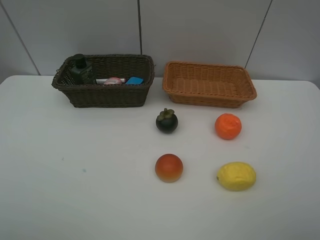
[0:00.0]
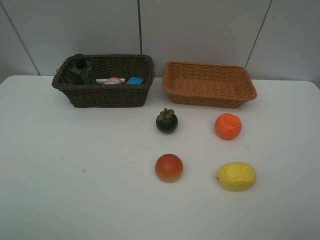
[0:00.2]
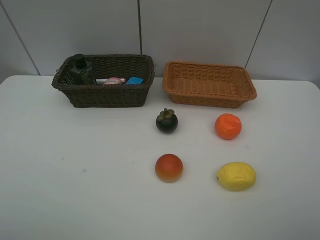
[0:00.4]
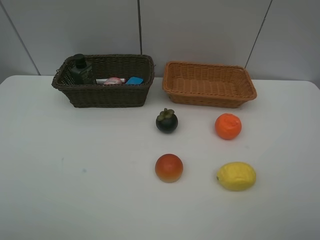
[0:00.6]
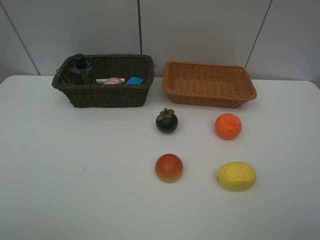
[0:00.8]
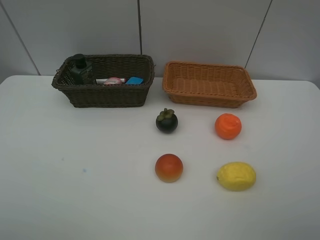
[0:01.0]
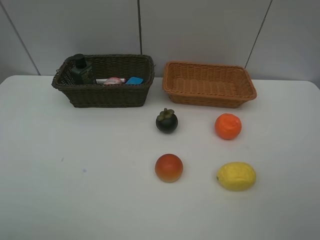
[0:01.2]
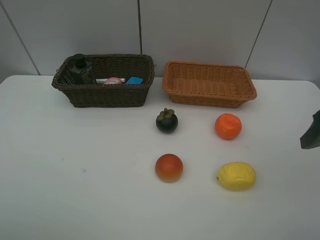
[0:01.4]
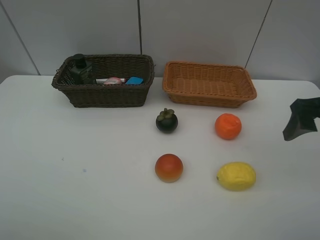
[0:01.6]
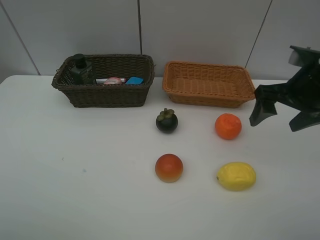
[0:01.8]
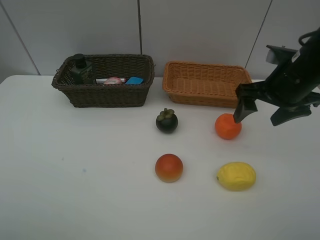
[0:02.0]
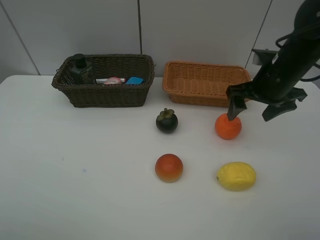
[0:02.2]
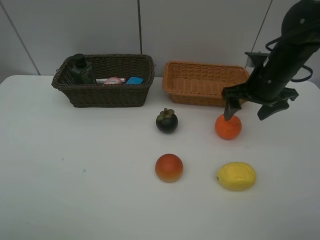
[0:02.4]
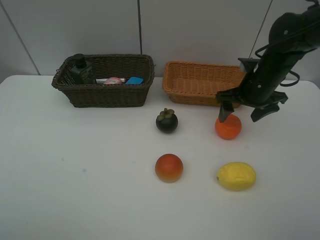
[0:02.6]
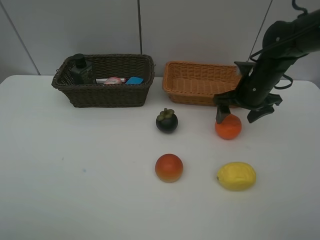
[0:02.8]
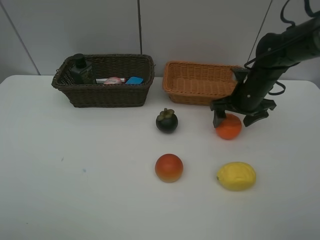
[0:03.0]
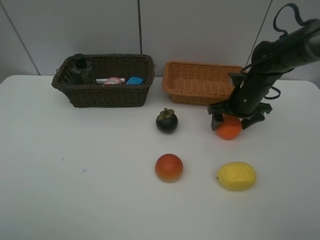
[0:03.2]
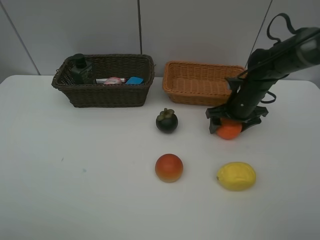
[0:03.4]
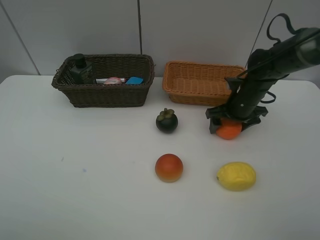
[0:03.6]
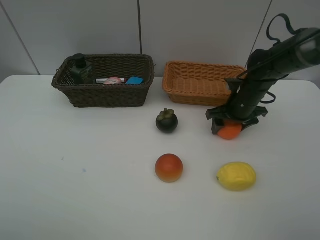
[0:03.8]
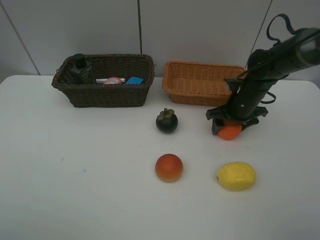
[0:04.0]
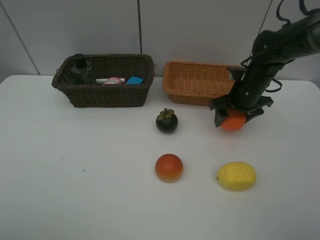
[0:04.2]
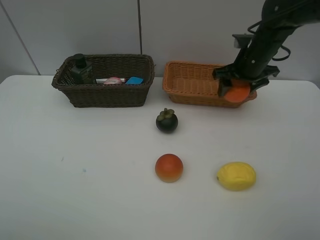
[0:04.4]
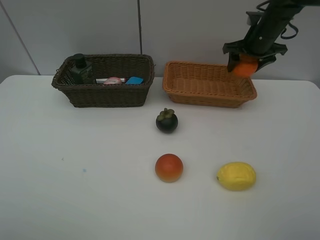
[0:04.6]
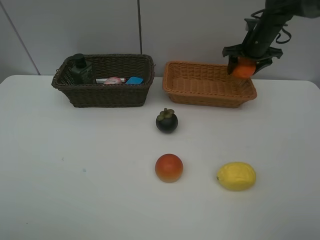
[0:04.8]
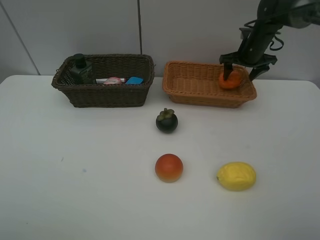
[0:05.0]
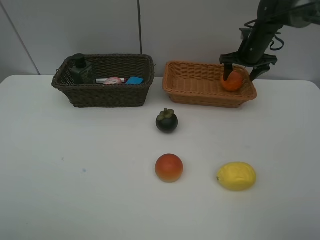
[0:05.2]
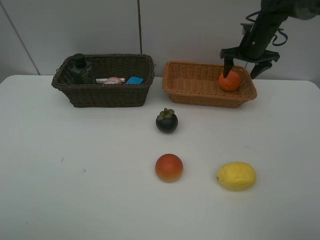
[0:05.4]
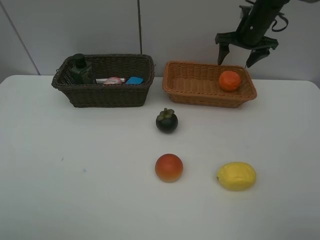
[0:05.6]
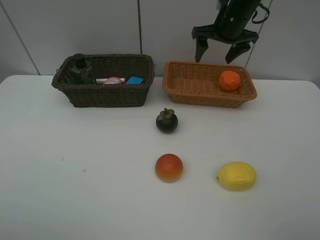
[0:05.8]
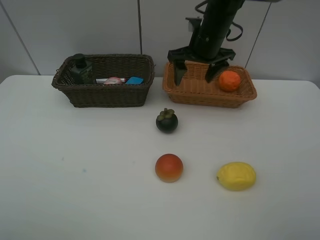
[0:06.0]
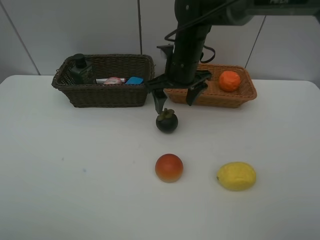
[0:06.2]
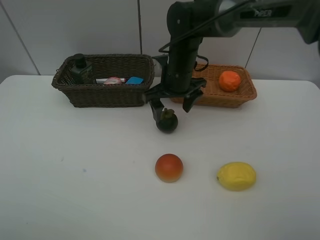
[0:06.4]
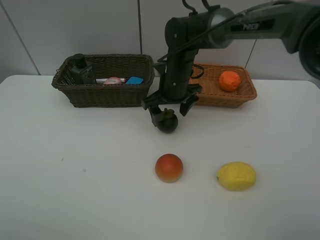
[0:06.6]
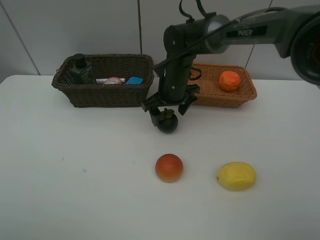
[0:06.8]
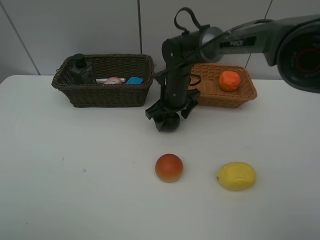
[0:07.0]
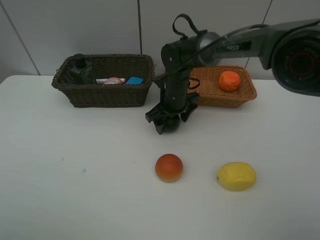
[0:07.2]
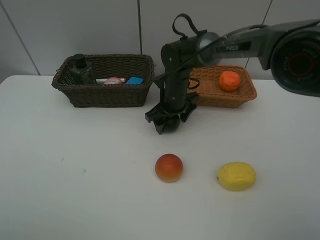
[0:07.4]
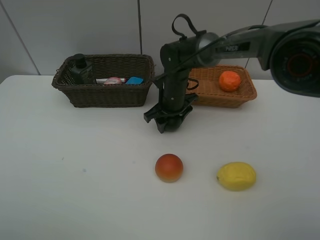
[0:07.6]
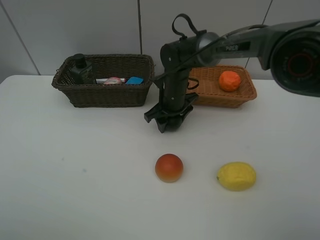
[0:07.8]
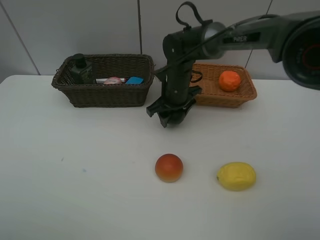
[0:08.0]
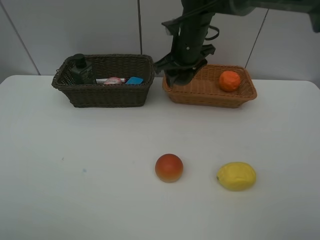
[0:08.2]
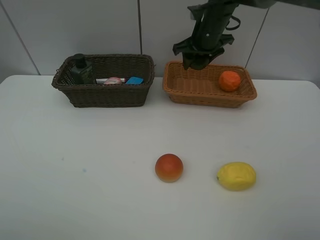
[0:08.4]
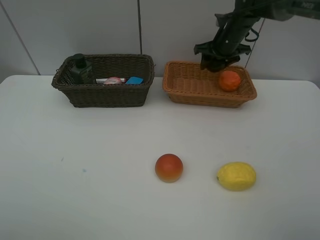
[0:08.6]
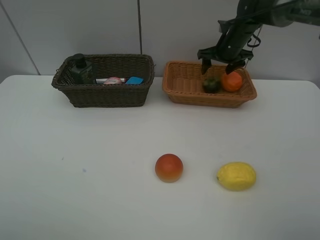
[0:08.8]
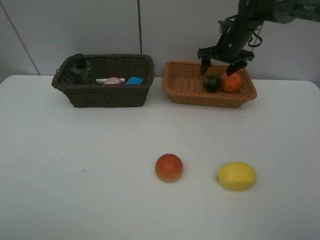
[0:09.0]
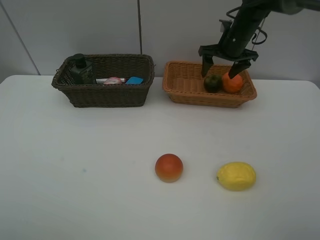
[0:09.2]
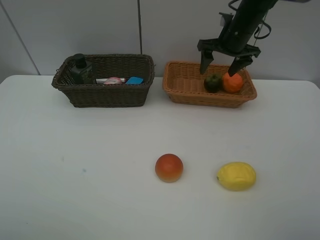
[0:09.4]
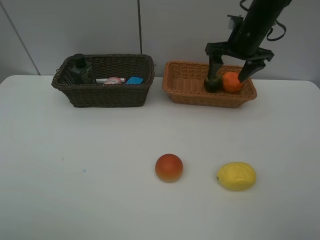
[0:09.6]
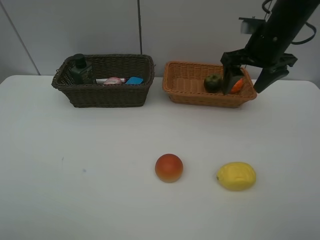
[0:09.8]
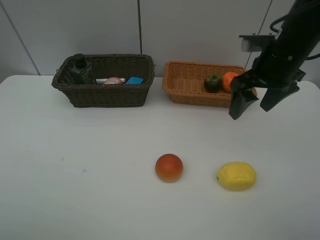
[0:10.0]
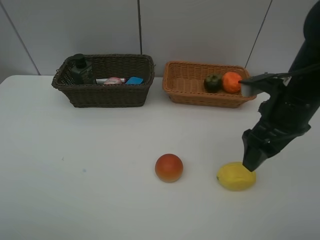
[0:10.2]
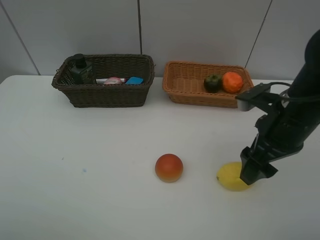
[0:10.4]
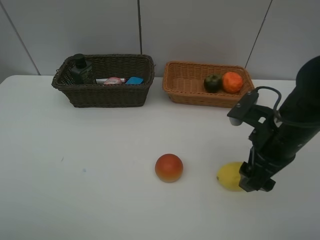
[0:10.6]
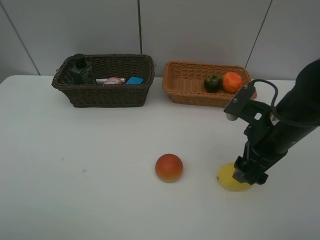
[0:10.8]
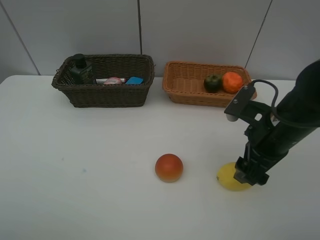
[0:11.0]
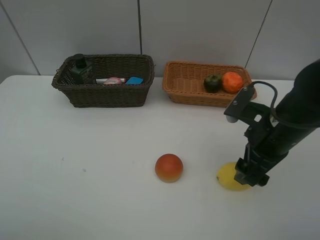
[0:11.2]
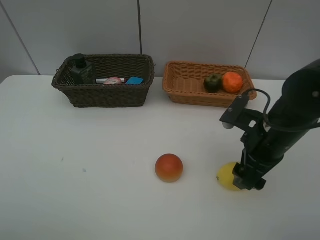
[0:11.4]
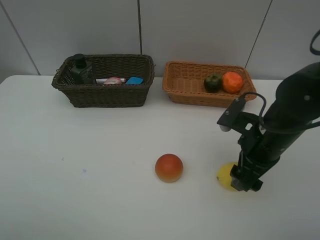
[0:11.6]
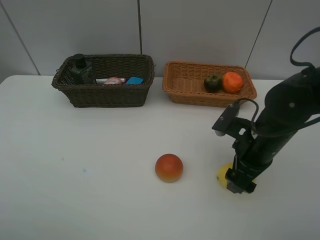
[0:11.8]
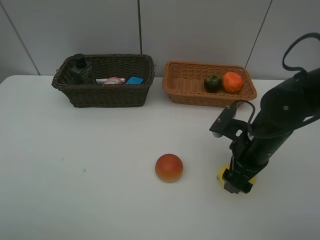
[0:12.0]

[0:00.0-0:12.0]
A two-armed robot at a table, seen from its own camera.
Task of the whole recording: Place multiple objects separately in different baskets.
Step, 0:00.0 to 0:04.2: Pick up the orange with right gripper.
Step, 0:04.4 to 0:05.4: Place the orange in the light basket with right gripper.
Step, 0:05.6 to 0:08.0: Pick up the mangosteen with right gripper.
Step, 0:08.2 to 0:08.8: Place the mangosteen in the light basket with right gripper.
0:00.0 to 0:01.6: The right gripper travels forward by approximately 20 cm.
0:01.6 to 0:03.0: The right gripper is displaced forward, downward and to the left by some 20 cm.
0:03.0 to 0:04.4: The right gripper goes approximately 5 cm upward, and closes its fingers.
0:04.4 to 0:06.0: The right gripper heads to the left, covering about 10 cm, and opens.
0:06.0 to 0:07.6: The right gripper heads downward and to the left, covering about 15 cm, and closes.
0:07.6 to 0:09.0: The right gripper travels to the right, forward and upward by some 20 cm, and opens.
0:09.0 to 0:10.4: The right gripper shifts approximately 30 cm backward.
0:10.4 to 0:12.0: The right gripper moves downward, some 10 cm.

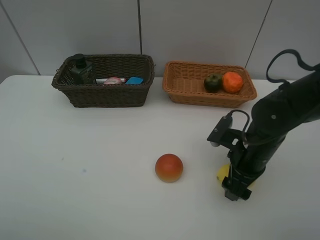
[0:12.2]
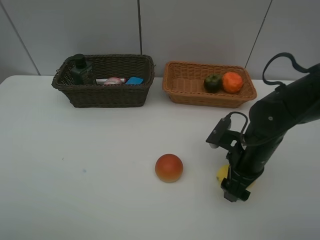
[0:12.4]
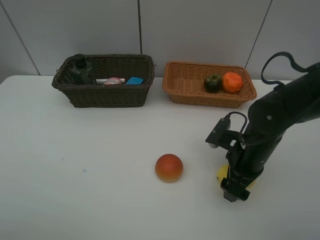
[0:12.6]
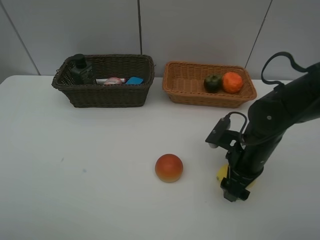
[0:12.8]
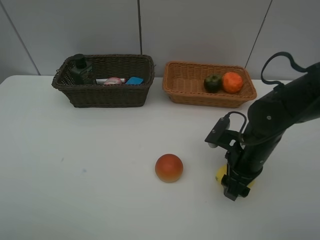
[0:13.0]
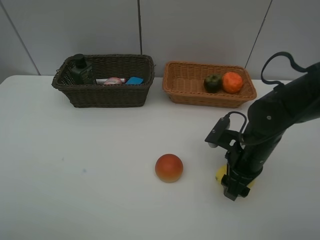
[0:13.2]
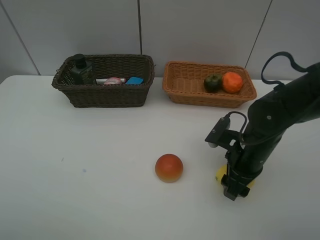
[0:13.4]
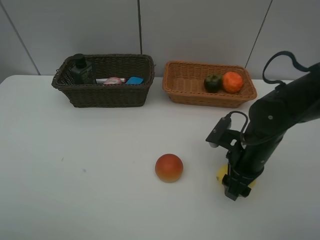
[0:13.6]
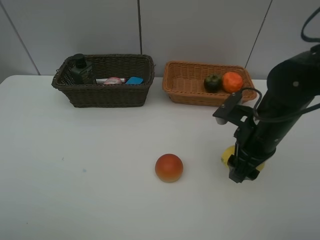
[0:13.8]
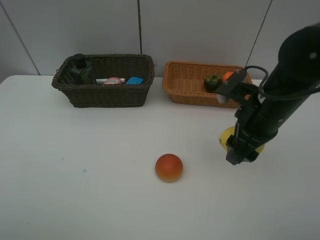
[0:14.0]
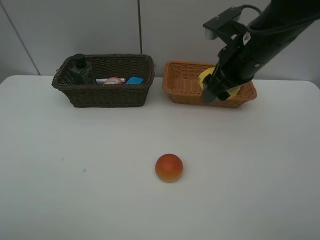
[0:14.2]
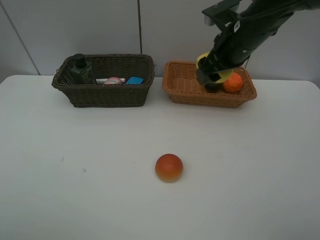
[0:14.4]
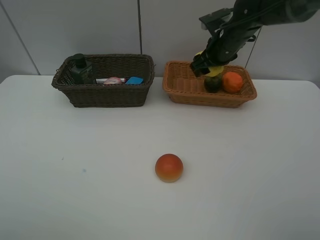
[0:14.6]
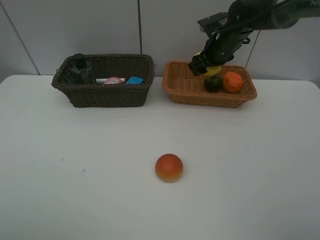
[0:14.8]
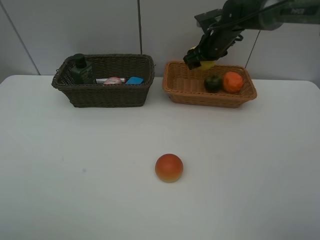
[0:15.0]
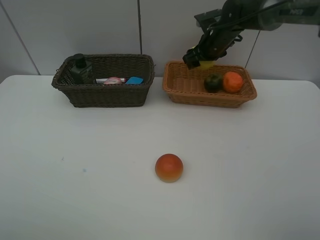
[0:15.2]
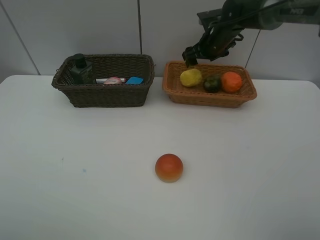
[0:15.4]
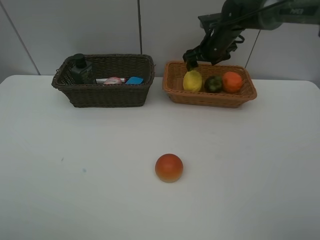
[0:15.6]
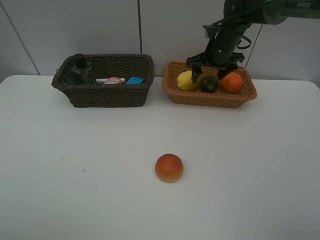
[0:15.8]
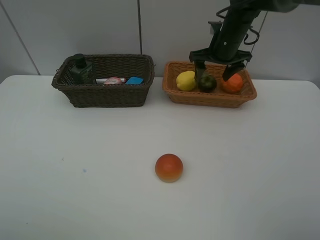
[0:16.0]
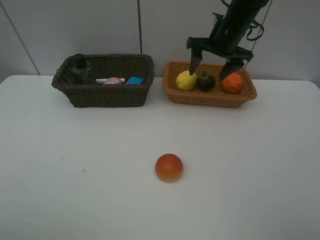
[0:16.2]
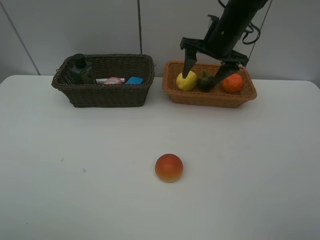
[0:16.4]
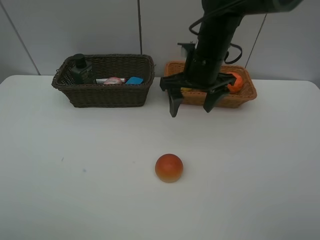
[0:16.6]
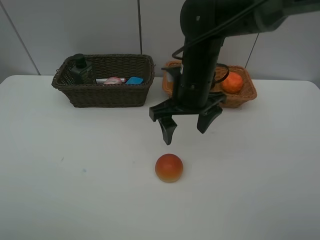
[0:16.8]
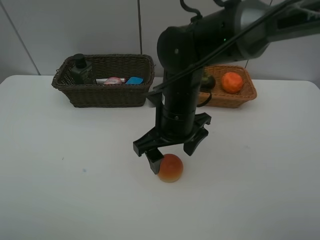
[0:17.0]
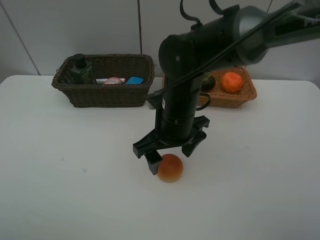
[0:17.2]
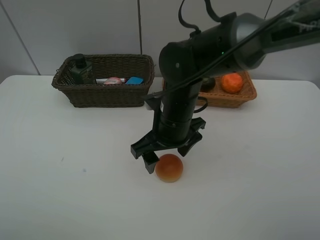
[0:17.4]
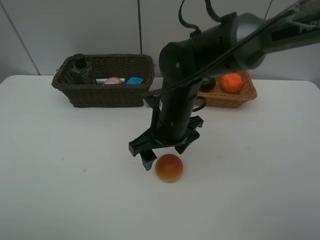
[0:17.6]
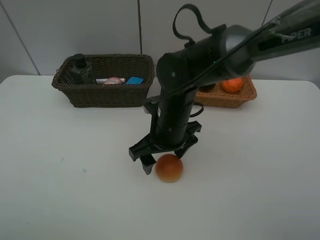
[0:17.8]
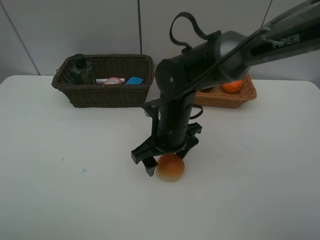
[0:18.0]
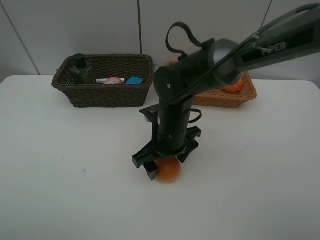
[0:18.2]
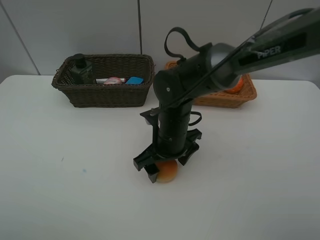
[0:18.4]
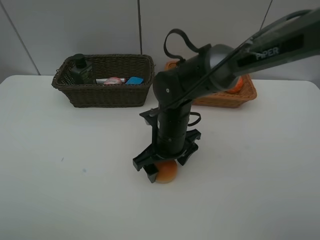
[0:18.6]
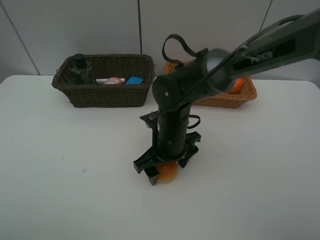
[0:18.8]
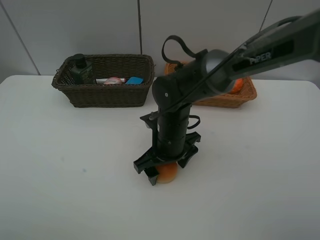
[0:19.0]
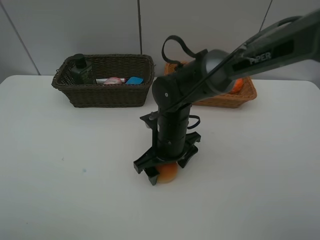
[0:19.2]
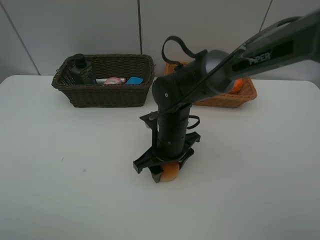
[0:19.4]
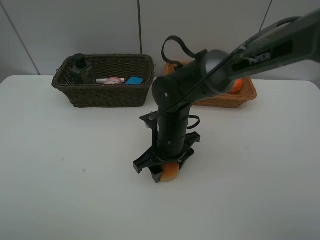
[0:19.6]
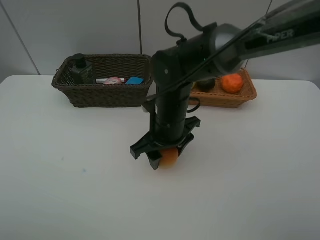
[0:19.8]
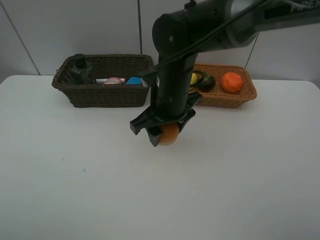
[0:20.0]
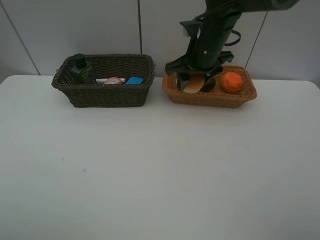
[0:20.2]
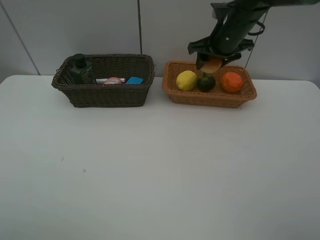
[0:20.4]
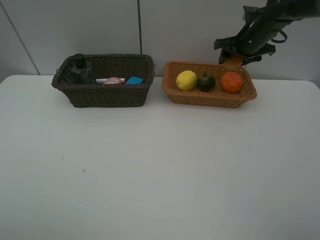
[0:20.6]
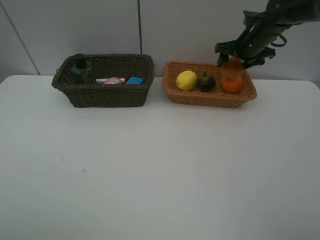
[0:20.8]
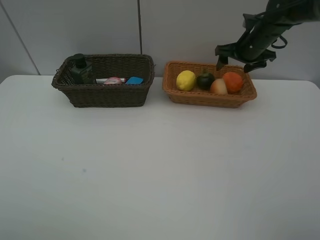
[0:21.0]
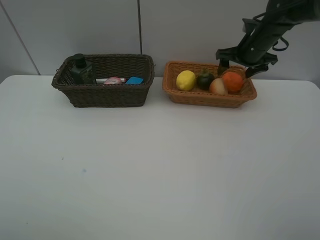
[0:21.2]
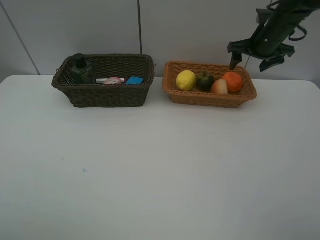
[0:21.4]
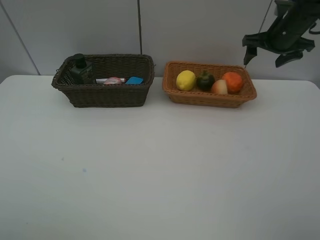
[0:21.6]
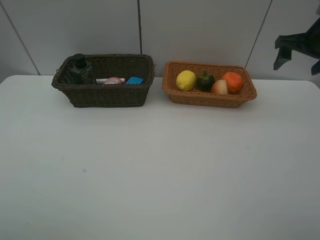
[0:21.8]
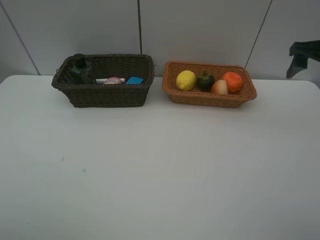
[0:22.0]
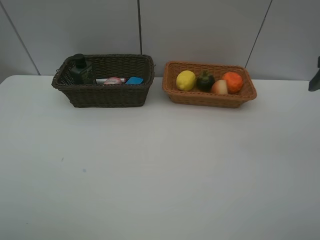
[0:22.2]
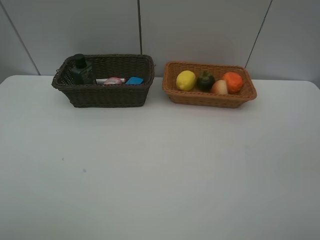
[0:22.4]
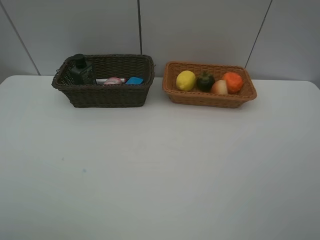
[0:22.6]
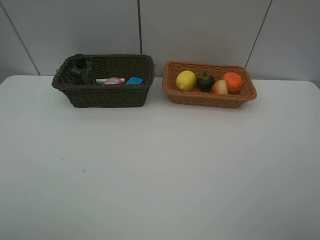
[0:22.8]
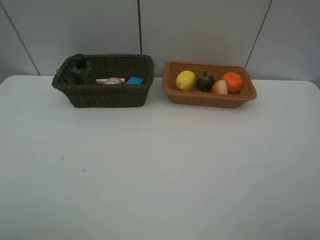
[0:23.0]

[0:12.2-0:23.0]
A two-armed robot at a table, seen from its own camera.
Task of the whole recording: Place multiple objects separately in different baskets.
Step, 0:13.8 to 0:15.4: Place the lemon in the light basket with right gripper.
Step, 0:15.6 to 0:19.8: Pick up egg yolk pastry with right gripper.
Step, 0:20.0 to 0:21.0: Place the egg yolk pastry in the light basket with right gripper.
0:12.2 to 0:13.8: The right gripper travels upward by roughly 5 cm, and closes its fingers.
0:13.8 to 0:15.2: The right gripper moves forward, about 25 cm.
0:15.2 to 0:16.8: The right gripper heads backward and to the left, covering roughly 25 cm, and opens up.
0:16.8 to 0:18.4: The right gripper is displaced downward by approximately 10 cm.
0:18.4 to 0:20.0: The right gripper travels upward by about 10 cm, and closes.
0:20.0 to 0:21.4: The right gripper travels to the right and forward by roughly 30 cm, and opens.
0:21.4 to 0:23.0: The right gripper is displaced backward by about 50 cm.
